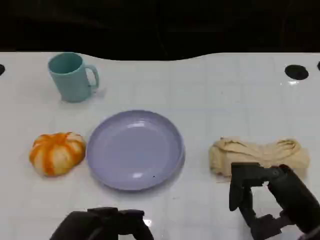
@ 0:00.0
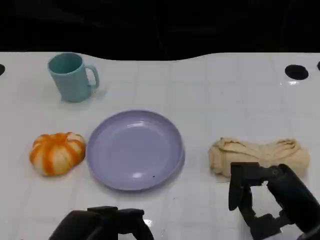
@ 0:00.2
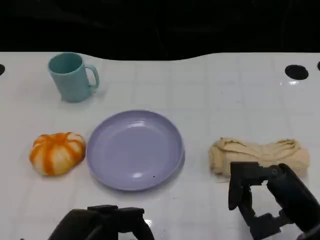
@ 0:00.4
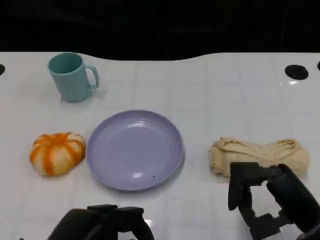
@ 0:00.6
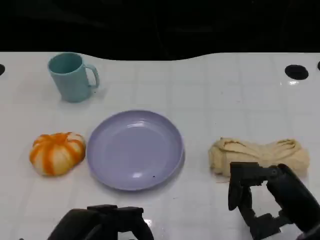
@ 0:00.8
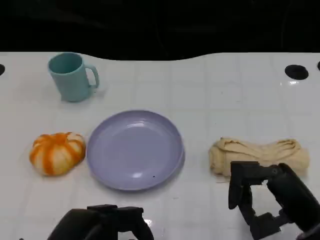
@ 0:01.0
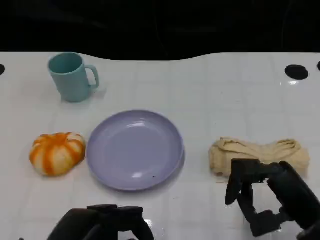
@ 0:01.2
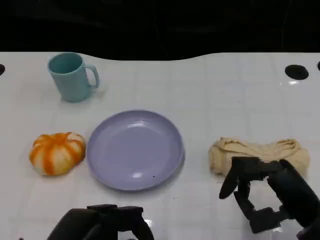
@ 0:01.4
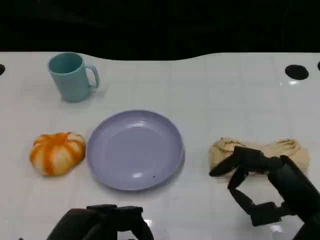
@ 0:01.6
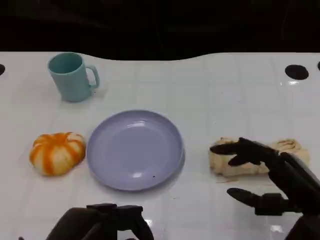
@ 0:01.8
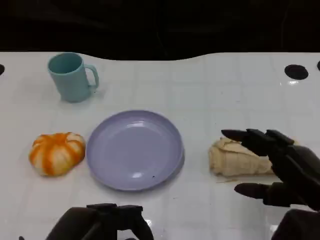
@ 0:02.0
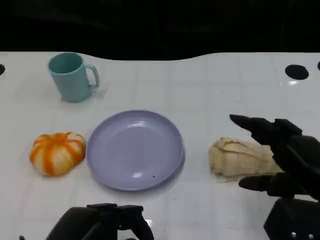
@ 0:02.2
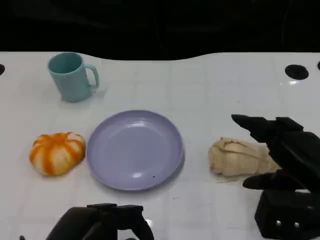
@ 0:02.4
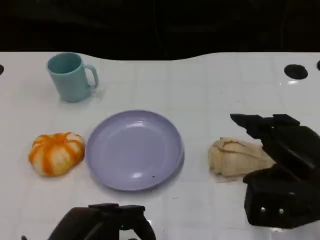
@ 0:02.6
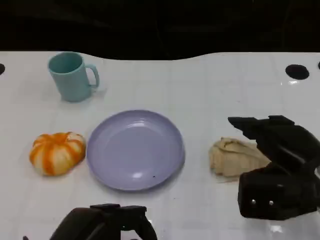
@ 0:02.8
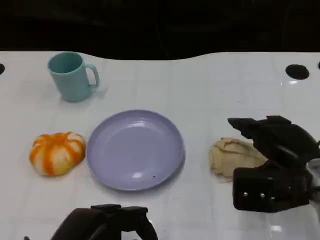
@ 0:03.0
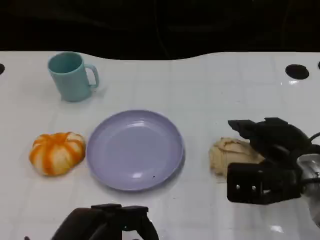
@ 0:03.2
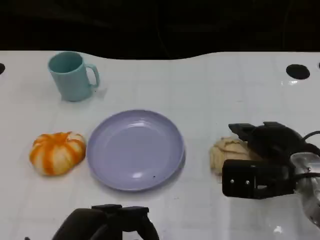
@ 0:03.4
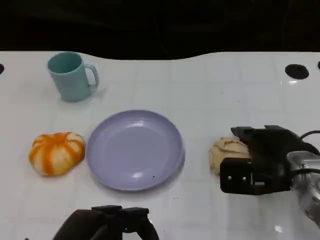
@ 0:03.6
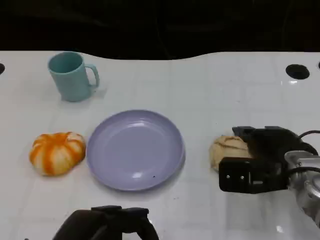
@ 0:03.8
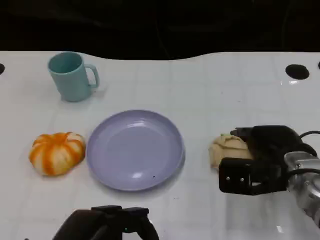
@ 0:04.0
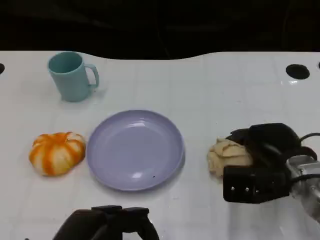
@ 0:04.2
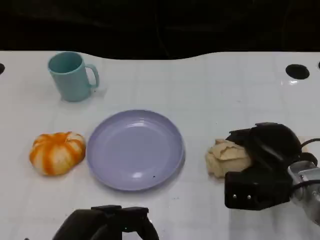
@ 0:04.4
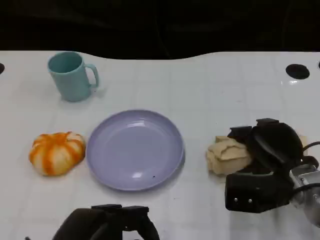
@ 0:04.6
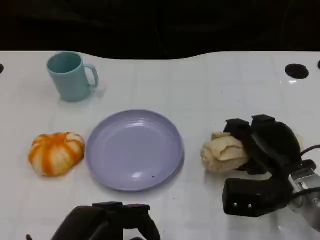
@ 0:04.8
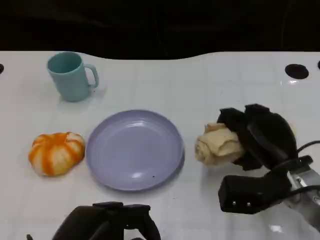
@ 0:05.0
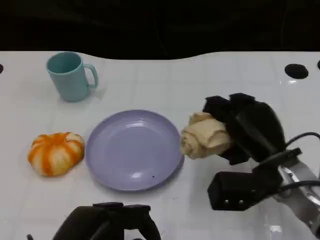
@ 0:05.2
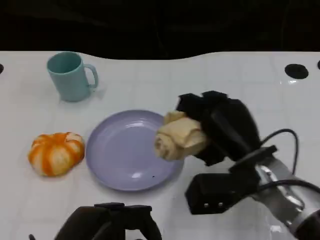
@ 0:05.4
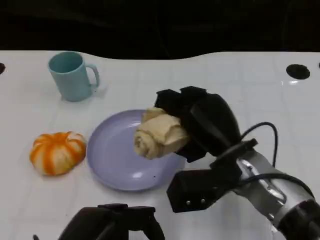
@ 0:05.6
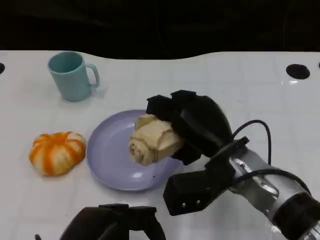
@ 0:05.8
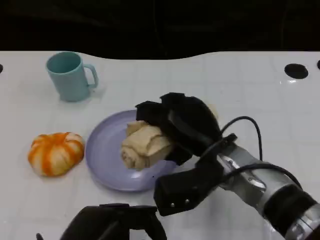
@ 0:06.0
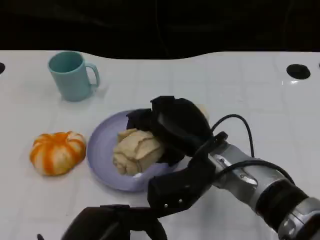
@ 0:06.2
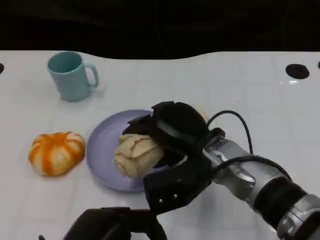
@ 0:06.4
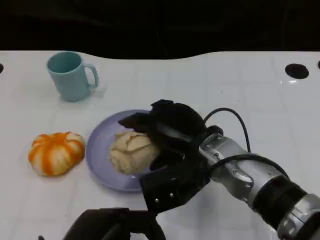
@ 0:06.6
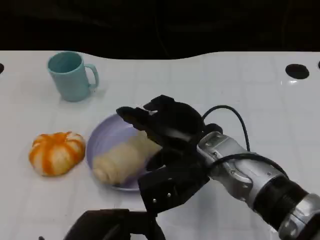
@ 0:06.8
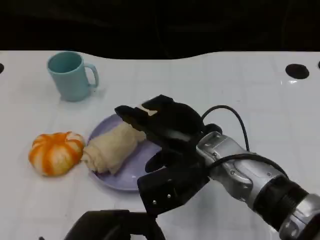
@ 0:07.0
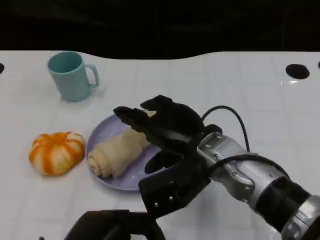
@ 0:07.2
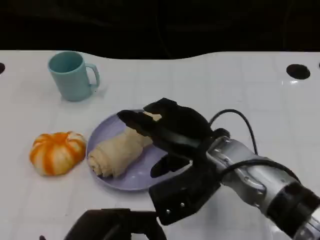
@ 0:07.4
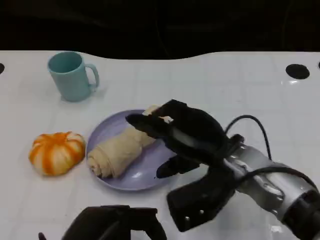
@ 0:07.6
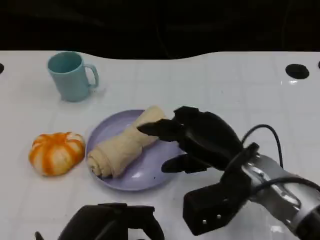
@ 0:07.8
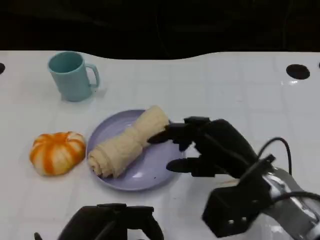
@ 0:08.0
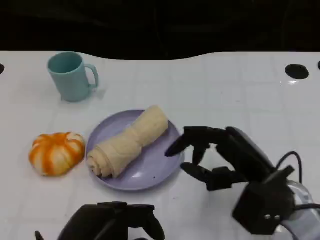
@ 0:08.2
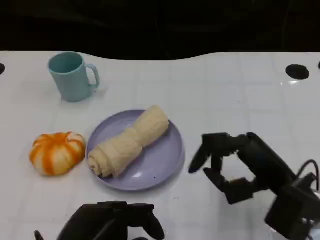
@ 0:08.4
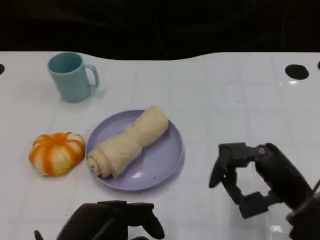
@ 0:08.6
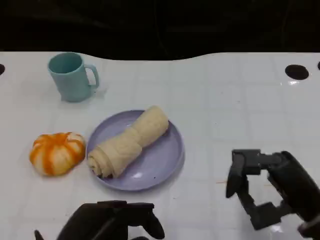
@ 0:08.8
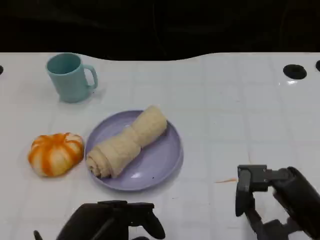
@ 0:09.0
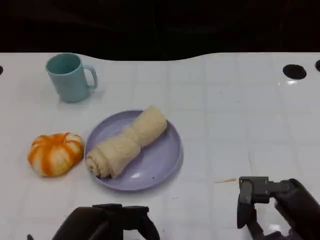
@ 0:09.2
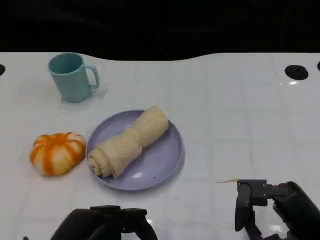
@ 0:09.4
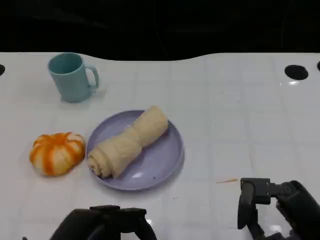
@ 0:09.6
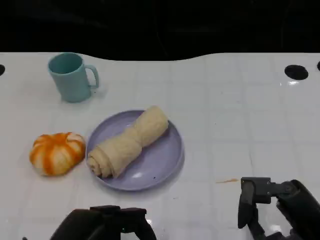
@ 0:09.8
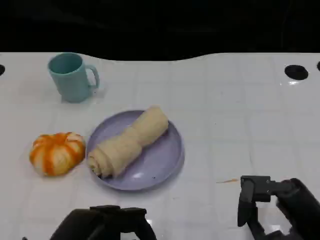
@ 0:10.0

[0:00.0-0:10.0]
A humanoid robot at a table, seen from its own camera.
Task of the whole recording: Grasp the towel on the left side of the plate with the left hand and place it into the plate.
0:00.0 to 0:01.4: Both hands stay about where they are.
0:01.4 to 0:02.8: The right hand is displaced forward by some 5 cm.
0:02.8 to 0:04.2: The right hand is displaced downward by roughly 5 cm.
0:04.2 to 0:05.8: The right hand goes some 10 cm to the left.
0:07.2 to 0:08.6: The right hand goes roughly 15 cm to the right and backward.
0:08.6 to 0:10.0: The right hand changes place by about 5 cm.

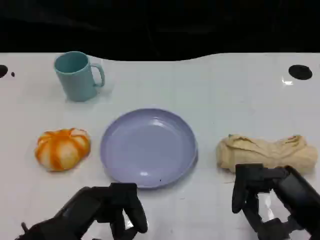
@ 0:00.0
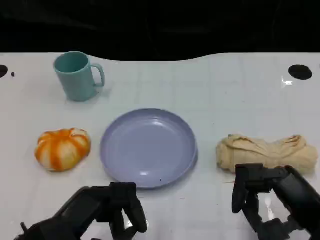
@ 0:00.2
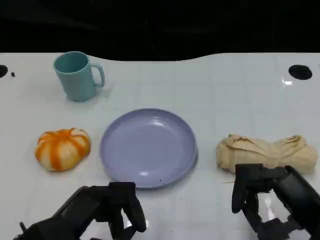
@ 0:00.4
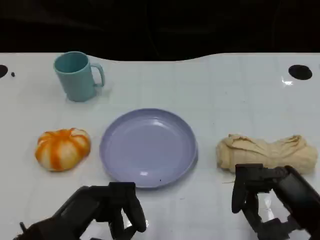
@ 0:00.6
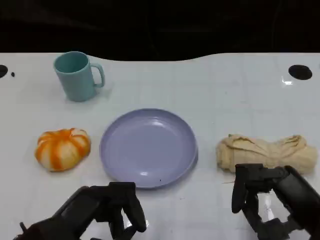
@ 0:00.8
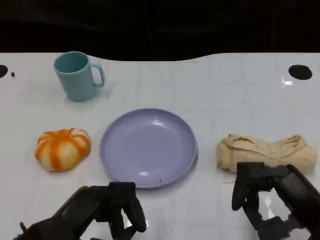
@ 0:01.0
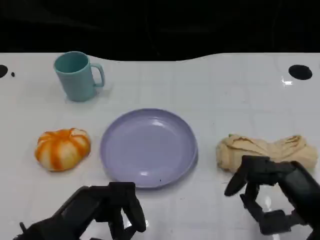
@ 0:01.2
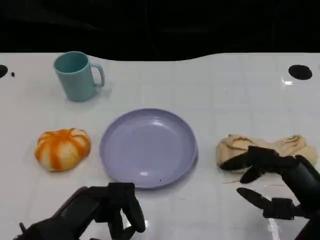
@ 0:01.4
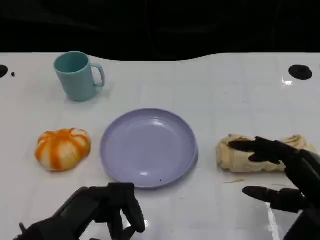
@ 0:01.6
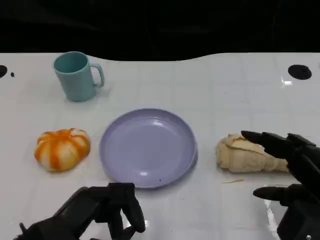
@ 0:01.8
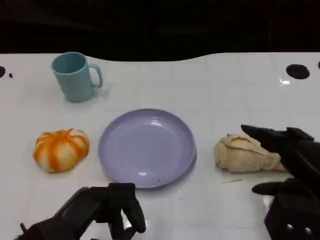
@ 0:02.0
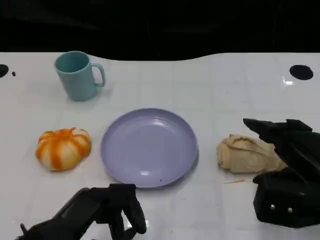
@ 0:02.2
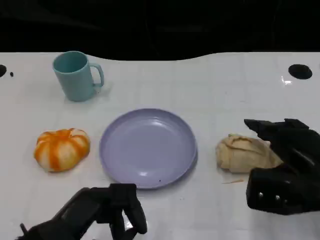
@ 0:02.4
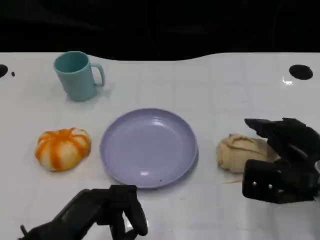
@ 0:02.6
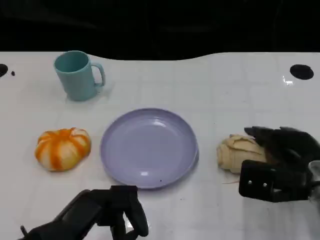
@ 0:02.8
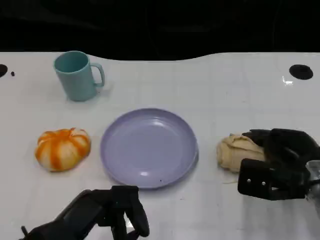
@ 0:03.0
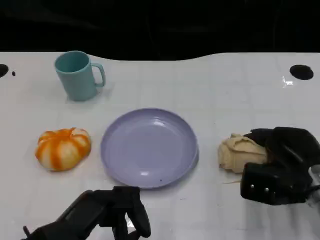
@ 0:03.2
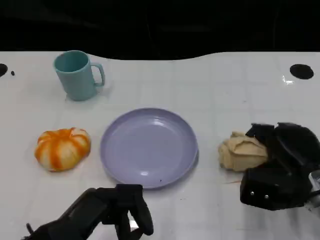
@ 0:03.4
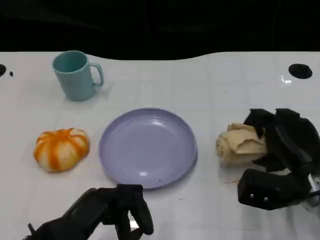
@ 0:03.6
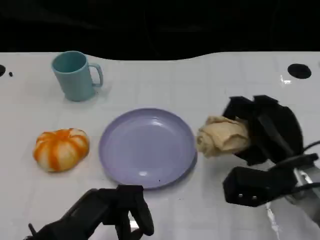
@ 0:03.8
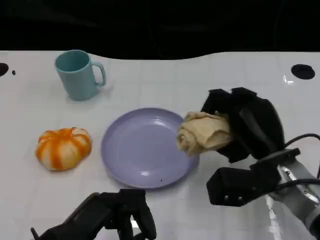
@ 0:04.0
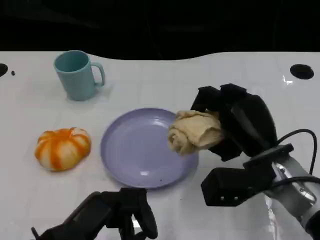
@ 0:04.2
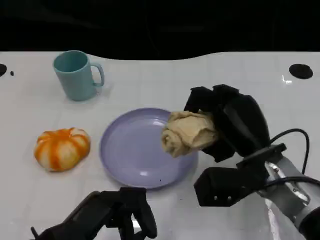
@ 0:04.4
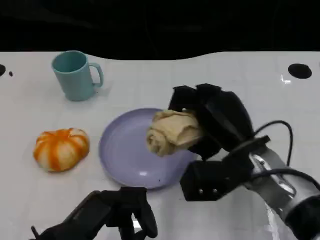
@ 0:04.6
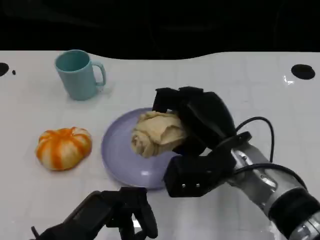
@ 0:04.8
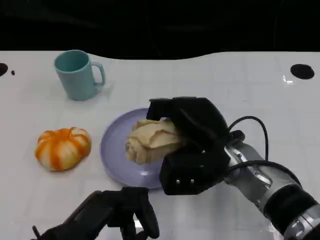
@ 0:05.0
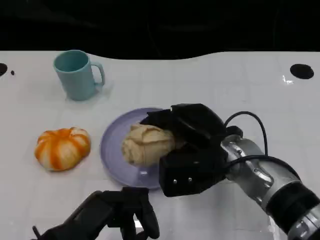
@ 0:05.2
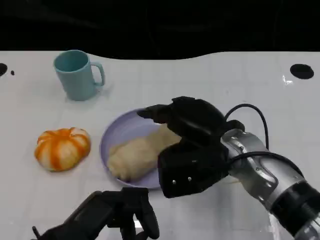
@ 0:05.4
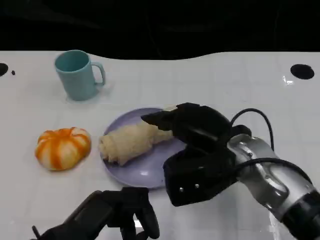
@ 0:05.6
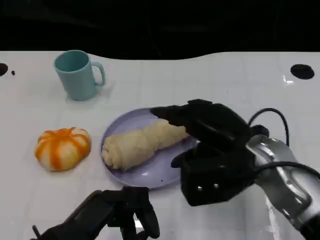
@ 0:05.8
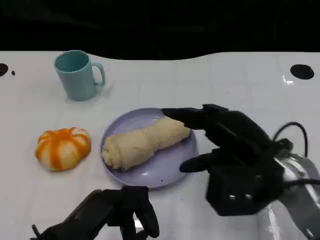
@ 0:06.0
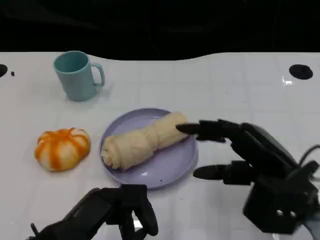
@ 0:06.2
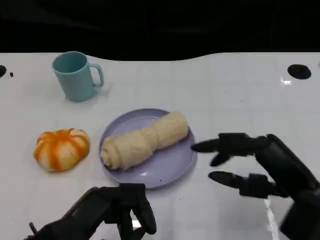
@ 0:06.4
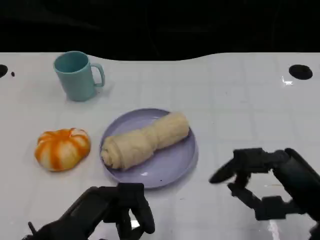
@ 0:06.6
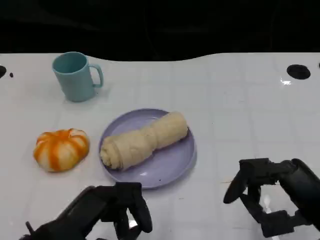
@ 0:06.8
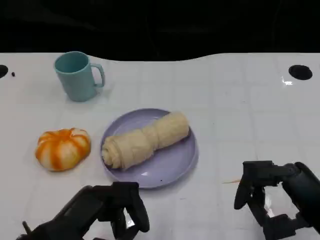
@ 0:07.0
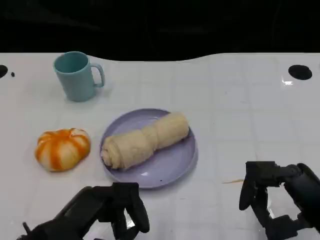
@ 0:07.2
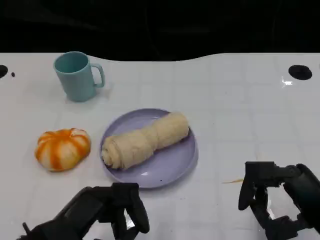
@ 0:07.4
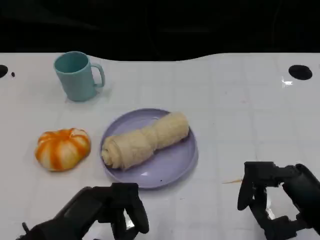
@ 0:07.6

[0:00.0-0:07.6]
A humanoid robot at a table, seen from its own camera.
Task of the whole recording: Grasp the towel on the left side of the plate with the left hand and place it into the plate.
0:01.6 to 0:03.0: The right hand moves forward and downward, some 10 cm.
0:03.0 to 0:04.6: The right hand travels to the left by some 10 cm.
0:04.6 to 0:06.0: The right hand moves to the right, approximately 5 cm.
0:06.0 to 0:07.6: The right hand is displaced backward and to the right by about 10 cm.

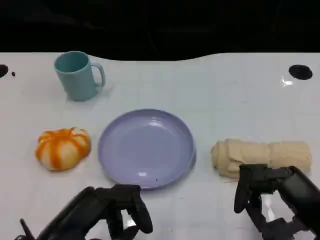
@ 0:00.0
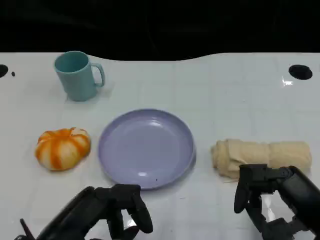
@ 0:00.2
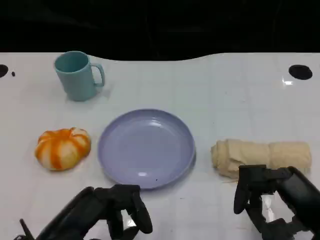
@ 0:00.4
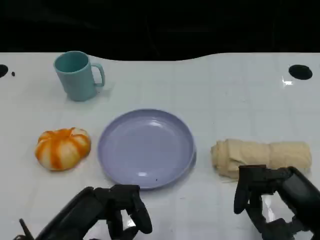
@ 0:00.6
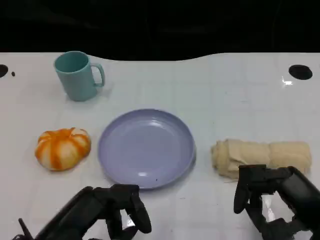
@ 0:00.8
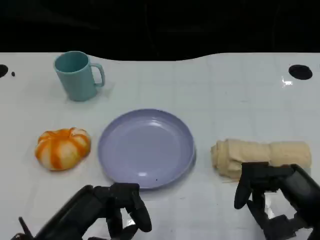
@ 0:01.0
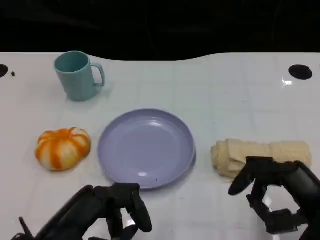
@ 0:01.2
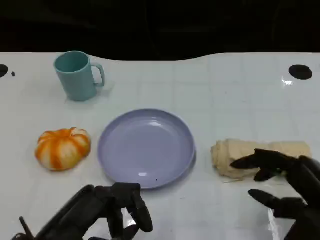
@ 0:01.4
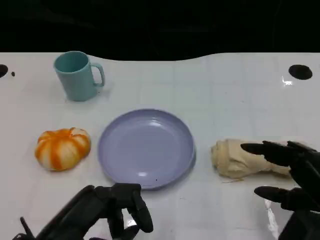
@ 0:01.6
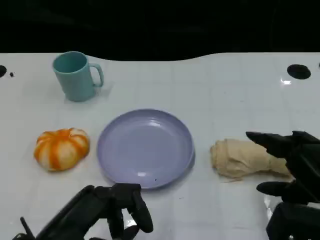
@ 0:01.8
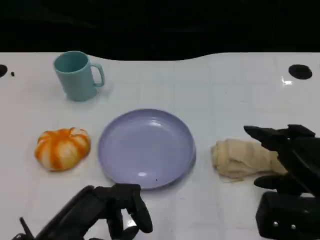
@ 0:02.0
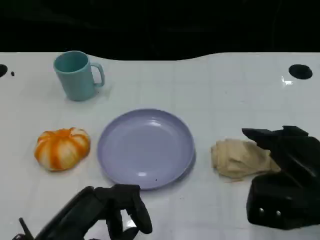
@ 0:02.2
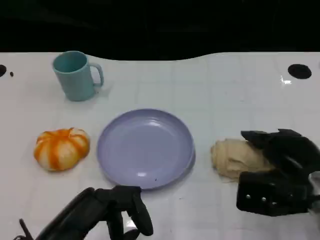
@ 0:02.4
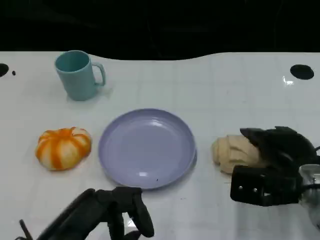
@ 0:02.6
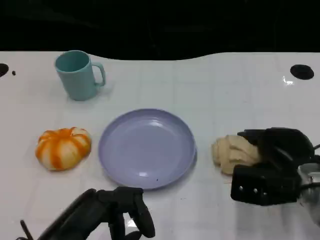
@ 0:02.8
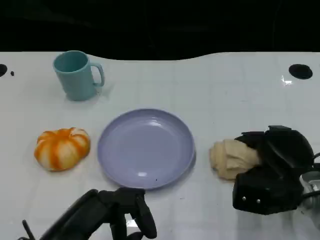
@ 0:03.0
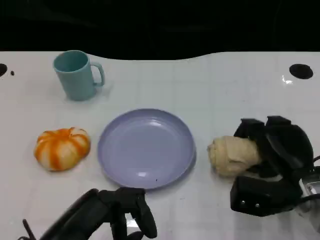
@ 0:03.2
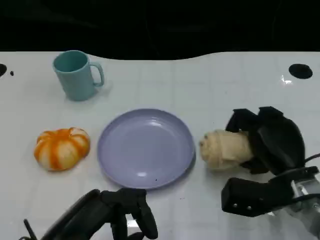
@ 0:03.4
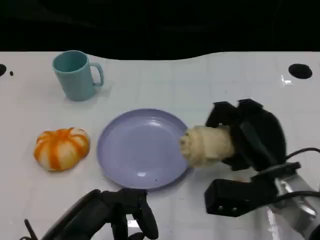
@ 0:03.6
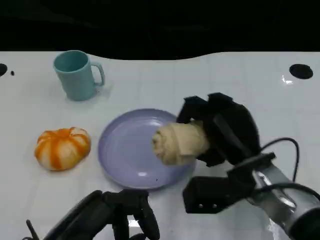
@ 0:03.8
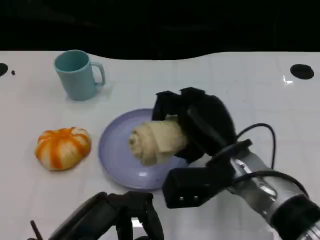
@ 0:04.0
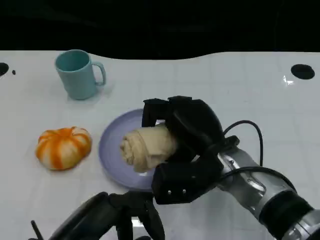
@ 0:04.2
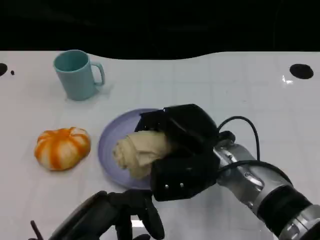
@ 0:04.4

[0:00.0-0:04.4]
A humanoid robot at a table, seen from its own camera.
Task of the whole recording: Grasp the towel on the left side of the plate with the left hand and place it into the plate.
0:01.4 to 0:03.0: The right hand is displaced forward and downward by roughly 10 cm.
0:03.0 to 0:04.4: The right hand travels to the left and upward by some 15 cm.
